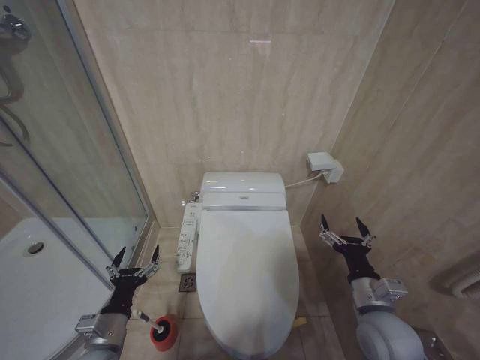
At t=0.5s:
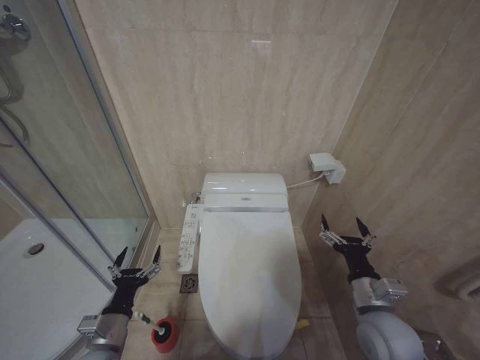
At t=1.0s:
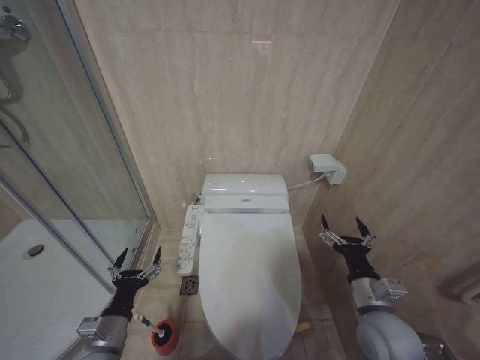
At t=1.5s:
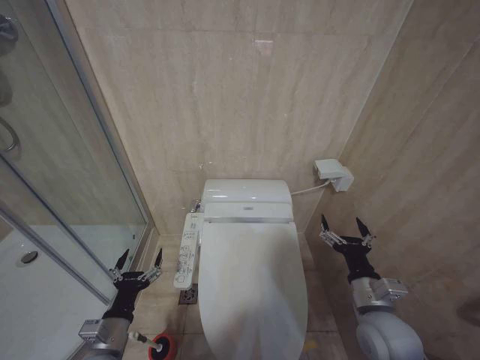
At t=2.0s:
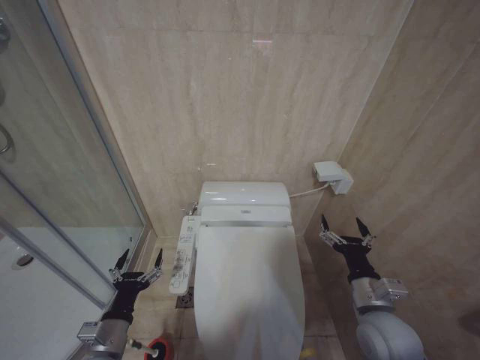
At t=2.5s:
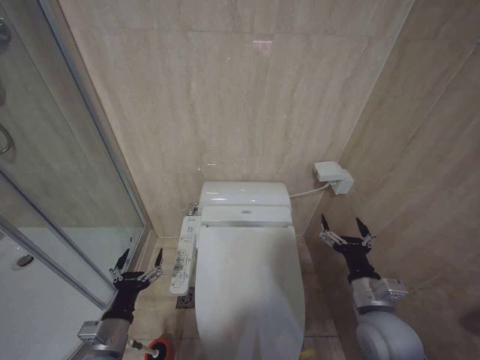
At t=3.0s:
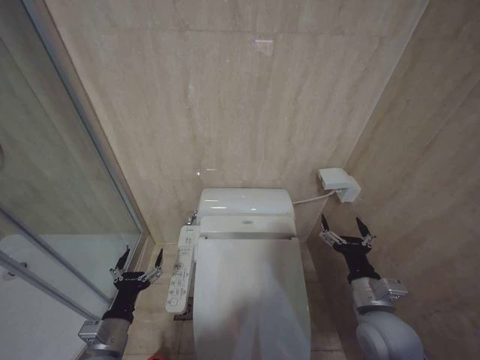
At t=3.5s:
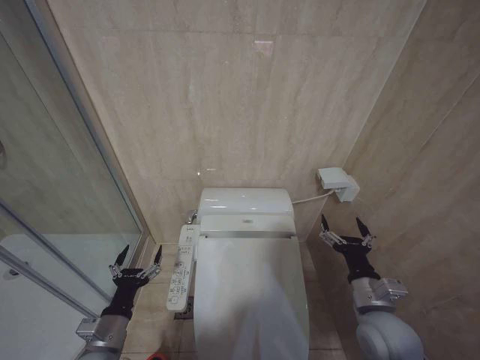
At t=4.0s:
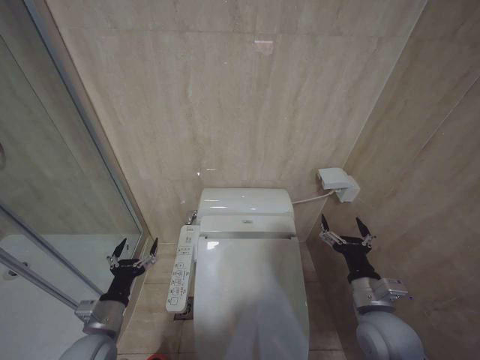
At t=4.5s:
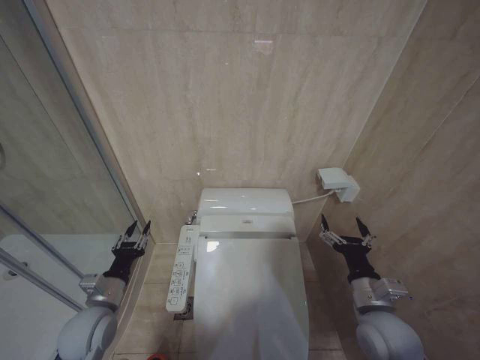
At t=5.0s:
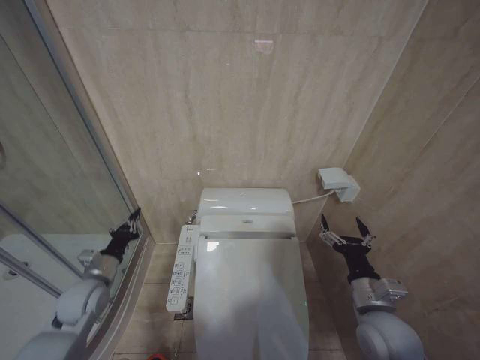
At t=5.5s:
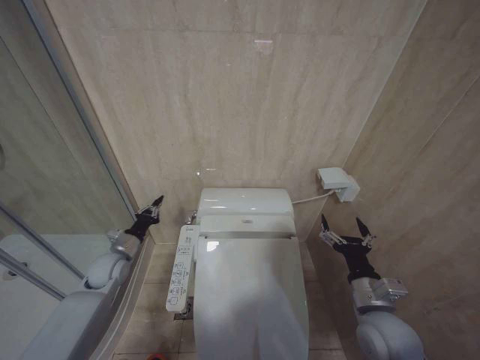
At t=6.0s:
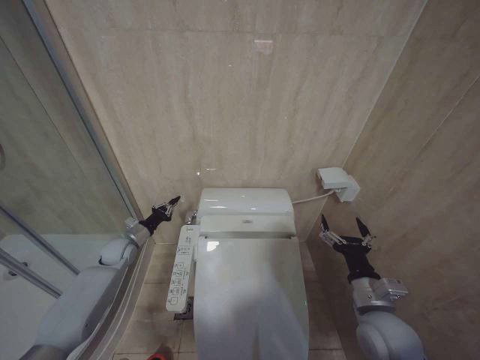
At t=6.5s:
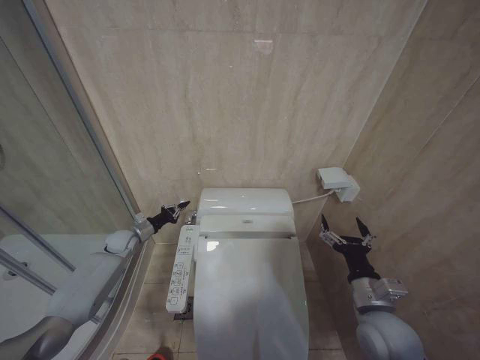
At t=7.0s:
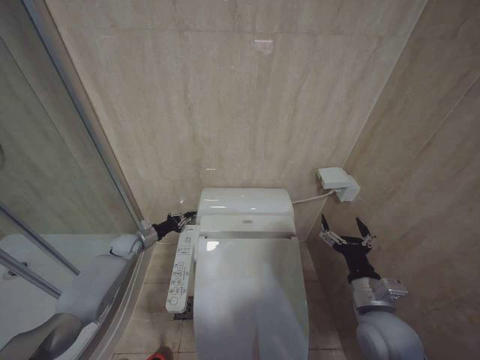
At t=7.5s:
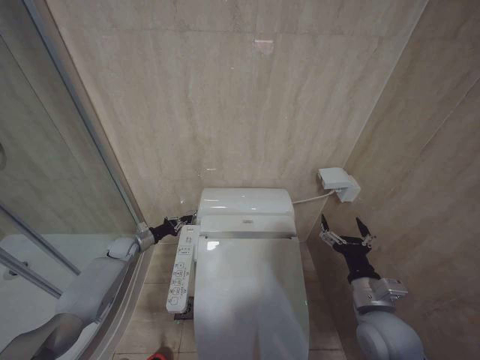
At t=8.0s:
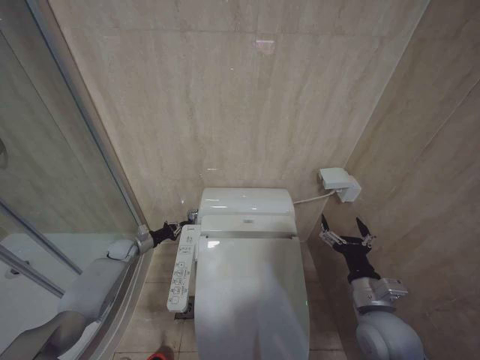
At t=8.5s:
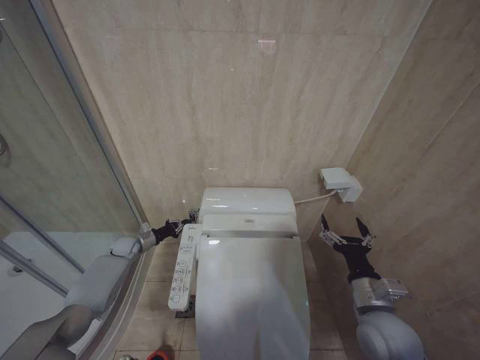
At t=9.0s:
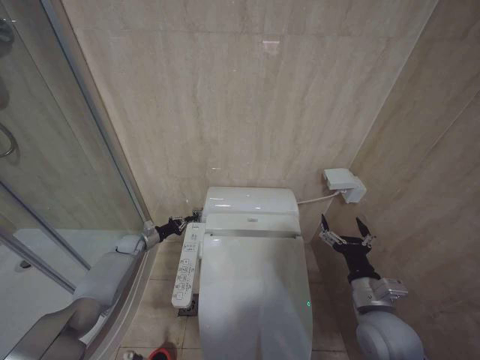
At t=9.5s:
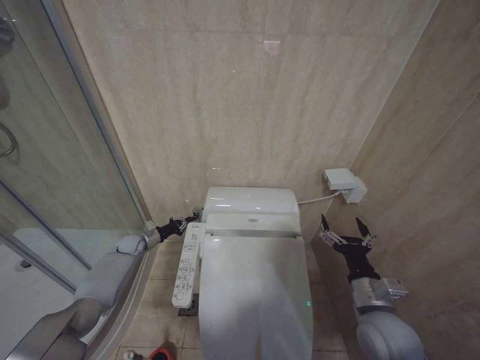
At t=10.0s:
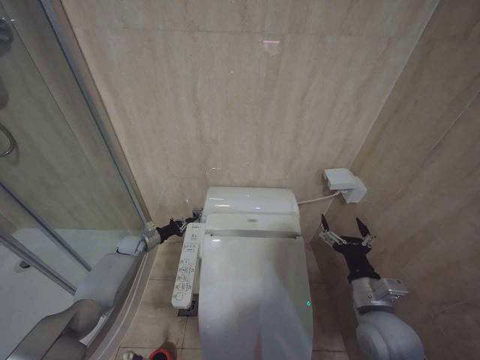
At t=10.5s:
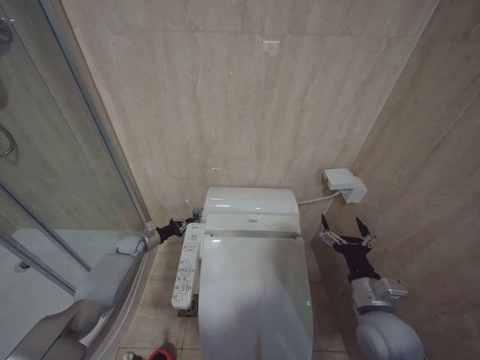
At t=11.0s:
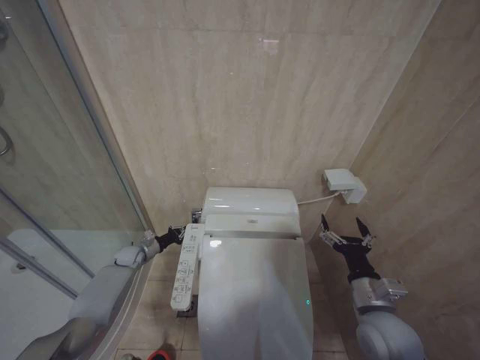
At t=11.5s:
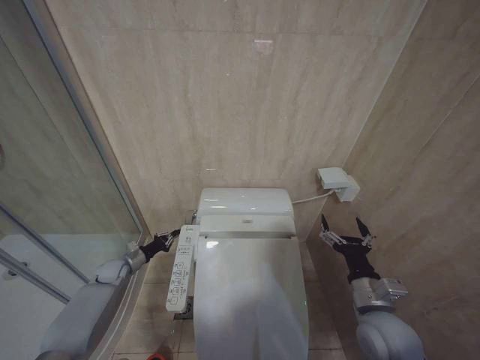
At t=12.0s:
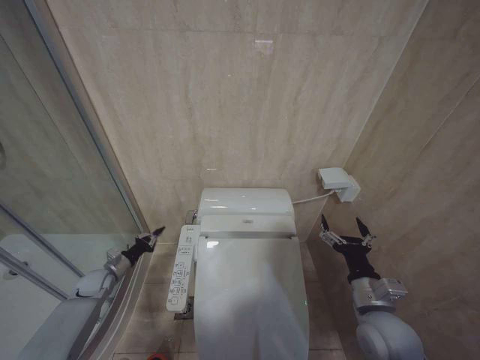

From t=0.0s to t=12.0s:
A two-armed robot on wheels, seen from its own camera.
Task of the whole recording: Open the toilet lid, clean the toilet bowl with a toilet brush, close the toilet lid, and flush.
From t=0.0s to t=2.0s: The two grippers keep their place.
From t=2.0s to t=4.0s: The grippers move only a little.
From t=4.0s to t=6.0s: The left gripper moves forward, approximately 25 cm, and closes its fingers.
From t=6.0s to t=8.0s: The left gripper shifts roughly 5 cm downward.
From t=8.0s to t=10.0s: The grippers move only a little.
From t=10.0s to t=12.0s: The left gripper heads backward and to the left, covering about 15 cm.

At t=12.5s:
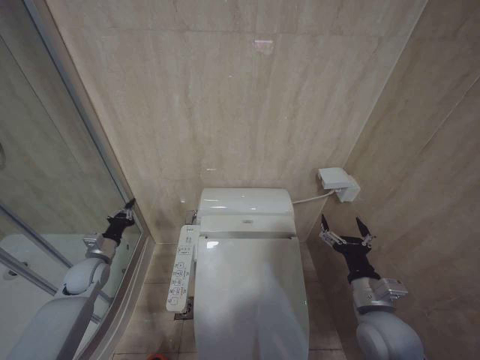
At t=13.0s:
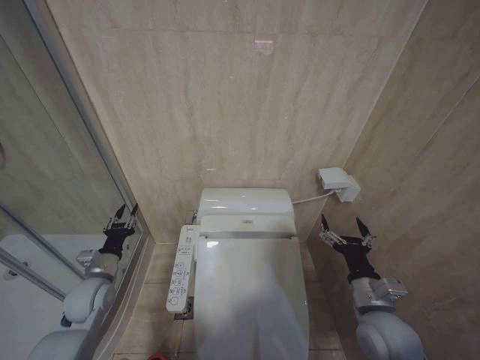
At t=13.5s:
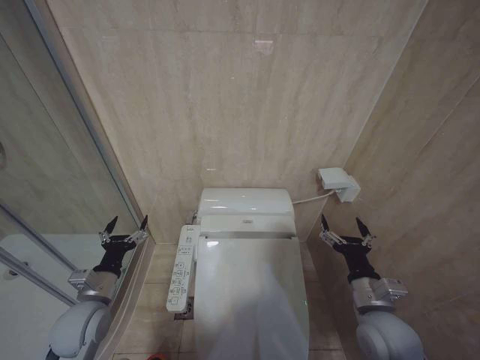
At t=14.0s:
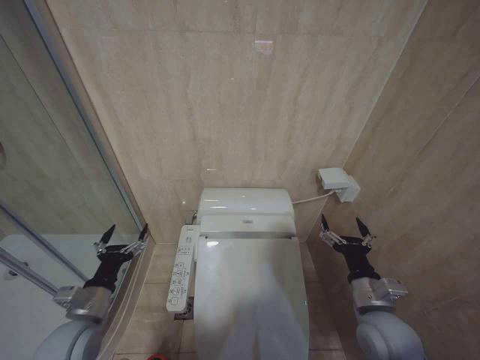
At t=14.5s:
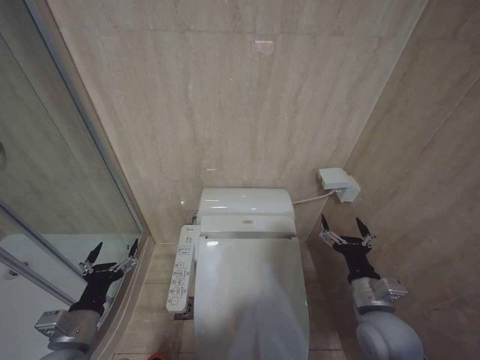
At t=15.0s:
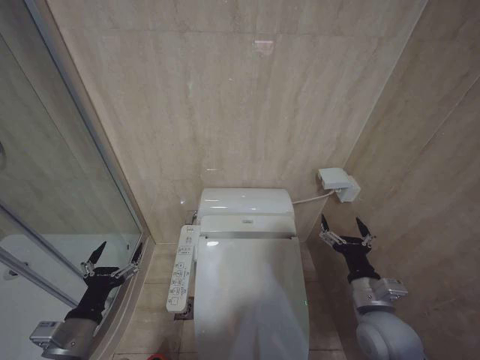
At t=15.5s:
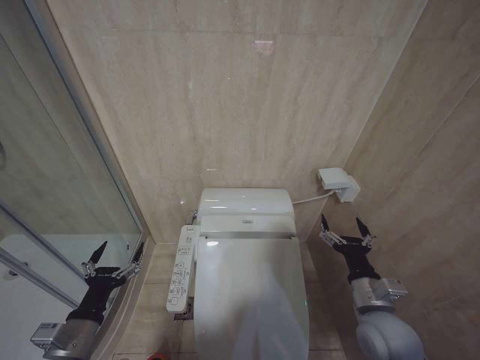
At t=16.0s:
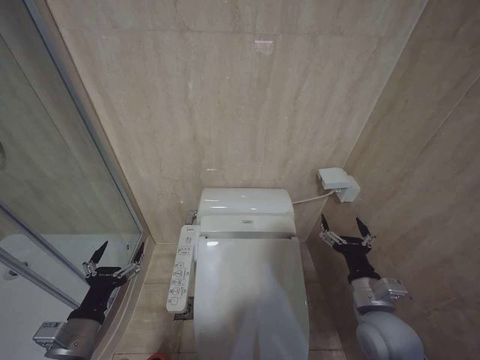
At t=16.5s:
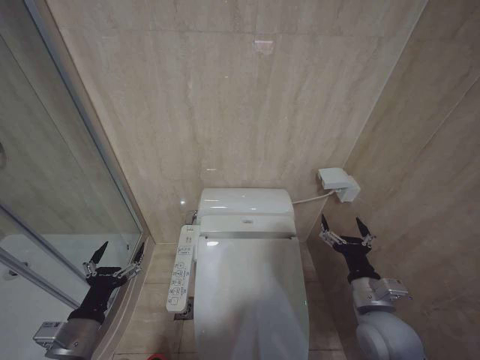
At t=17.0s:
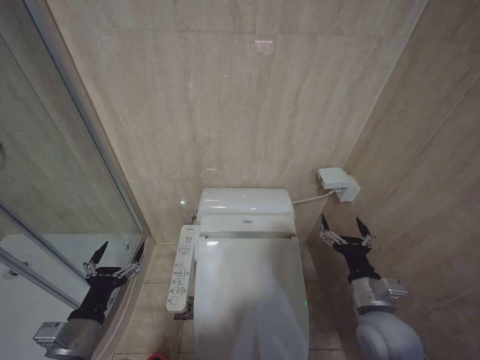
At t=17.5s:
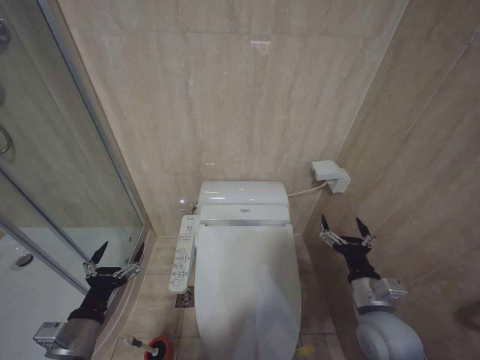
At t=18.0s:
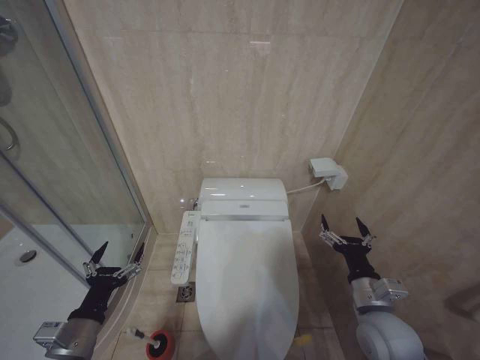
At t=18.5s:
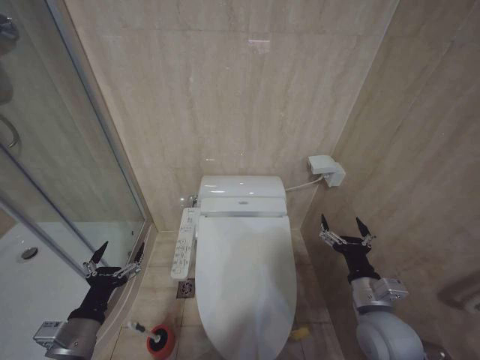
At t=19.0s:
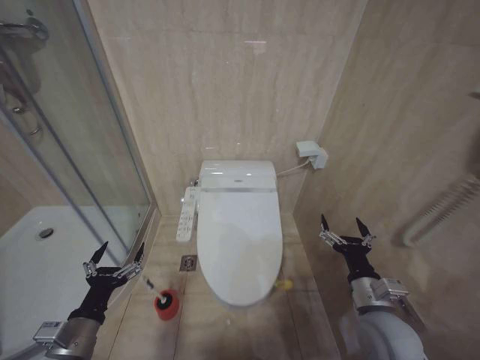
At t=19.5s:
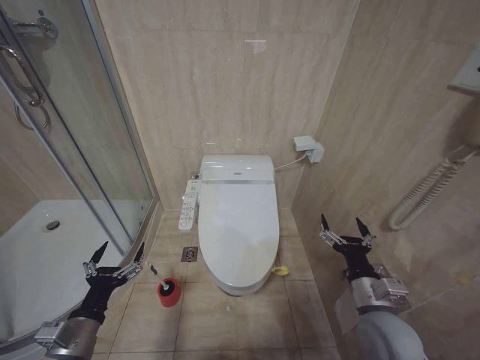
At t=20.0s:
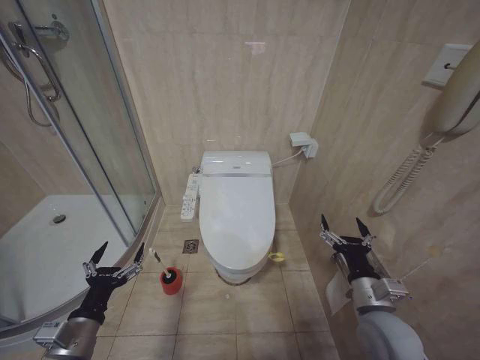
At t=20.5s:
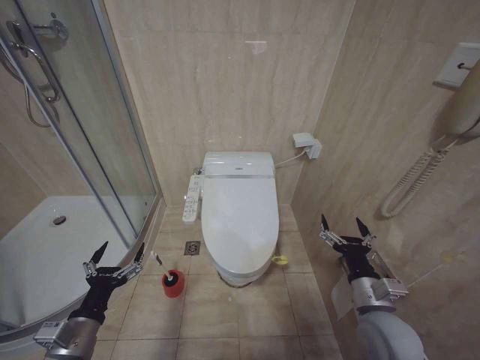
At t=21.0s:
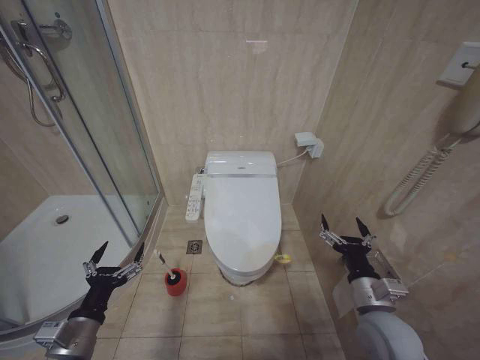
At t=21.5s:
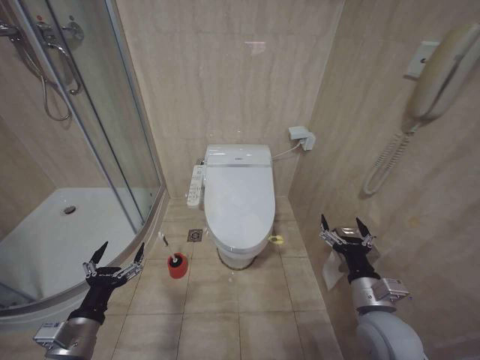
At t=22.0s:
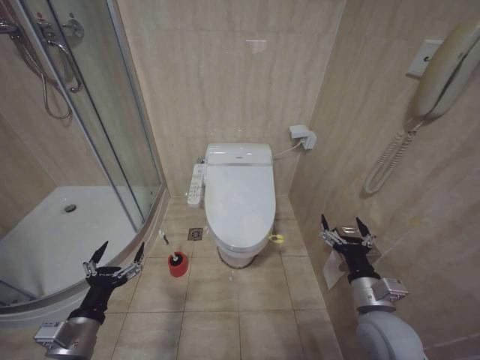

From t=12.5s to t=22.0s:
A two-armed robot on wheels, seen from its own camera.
Task of the whole recording: Open the toilet lid, clean the toilet bowl with a toilet brush, close the toilet lid, and flush.
From t=12.5s to t=14.5s: The left gripper shifts roughly 20 cm backward, and opens up.
From t=14.5s to t=16.5s: The grippers make only small movements.
From t=16.5s to t=18.0s: The two grippers keep their place.
From t=20.0s to t=22.0s: Neither gripper changes place.

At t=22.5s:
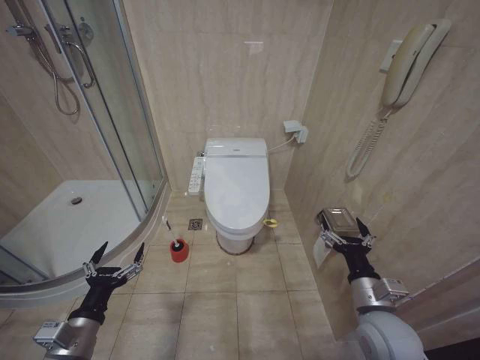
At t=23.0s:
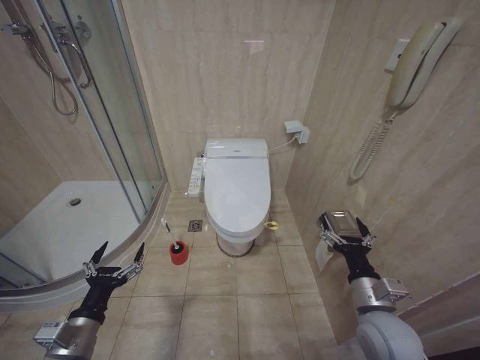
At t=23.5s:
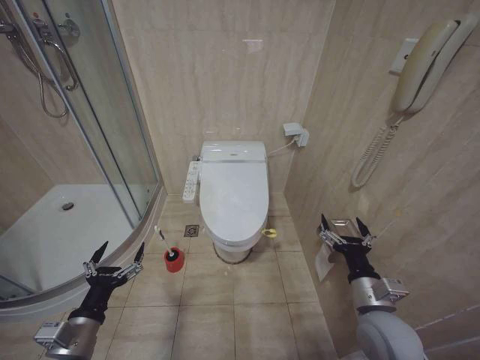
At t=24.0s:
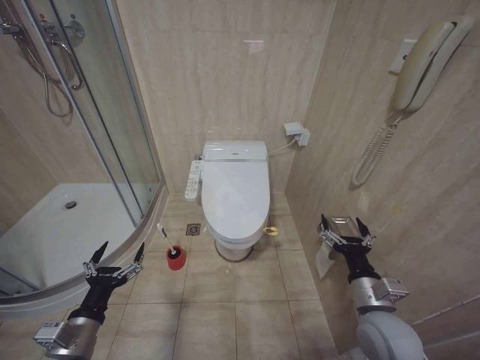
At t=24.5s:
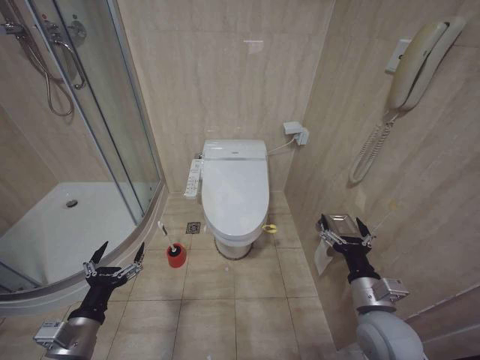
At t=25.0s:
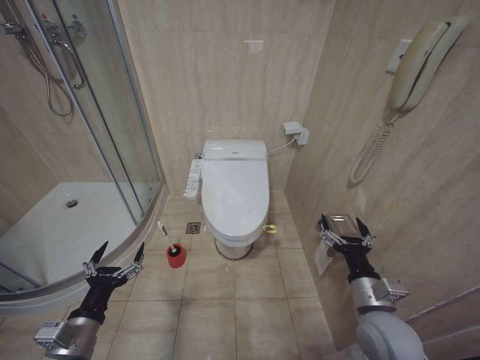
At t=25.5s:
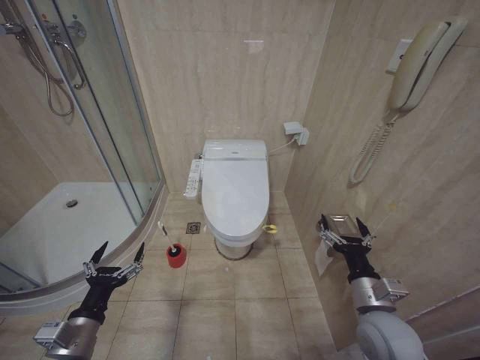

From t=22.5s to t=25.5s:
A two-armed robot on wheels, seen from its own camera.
Task of the whole recording: Open the toilet lid, clean the toilet bowl with a toilet brush, close the toilet lid, and flush.
From t=22.5s to t=25.5s: Neither gripper changes place.

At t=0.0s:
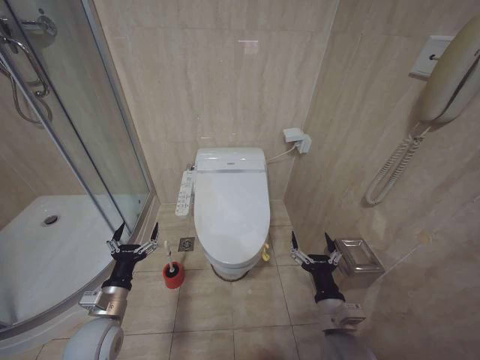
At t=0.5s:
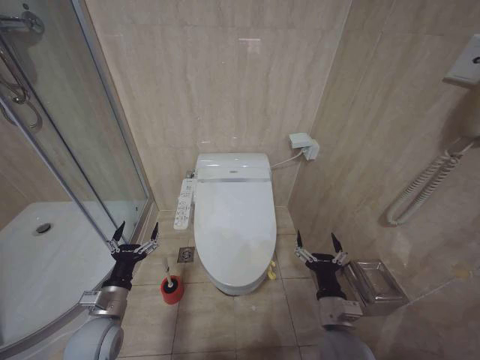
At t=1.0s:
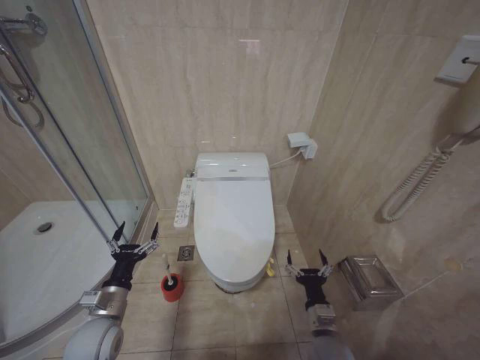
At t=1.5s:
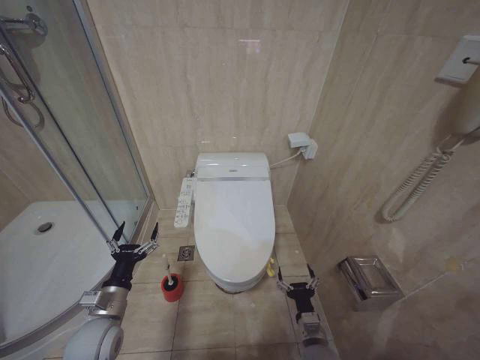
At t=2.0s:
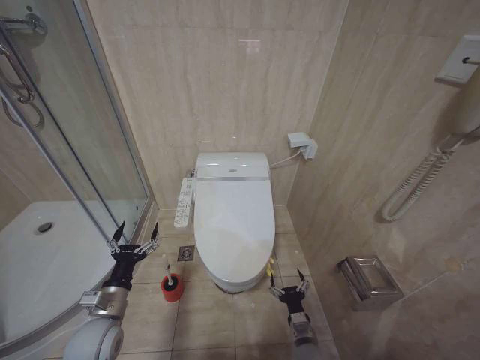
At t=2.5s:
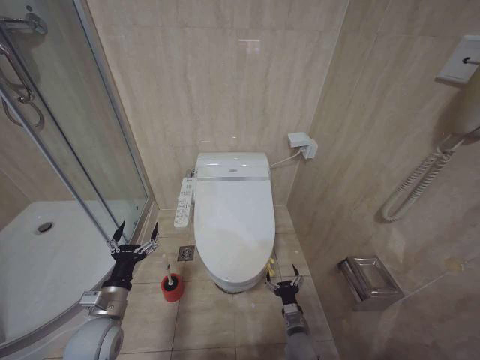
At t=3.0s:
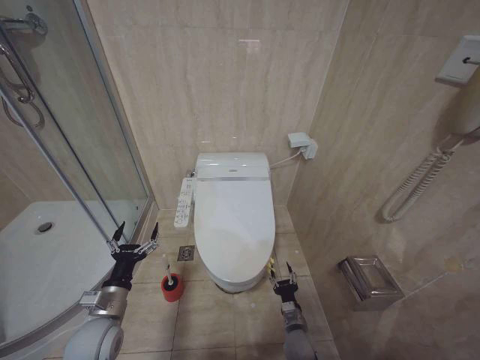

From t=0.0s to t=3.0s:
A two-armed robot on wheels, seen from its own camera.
Task of the whole recording: Open the toilet lid, clean the toilet bowl with a toilet brush, close the toilet lid, and flush.
From t=0.0s to t=1.5s: The right gripper moves downward, about 15 cm.
From t=1.5s to t=3.0s: The right gripper moves downward, approximately 5 cm.
